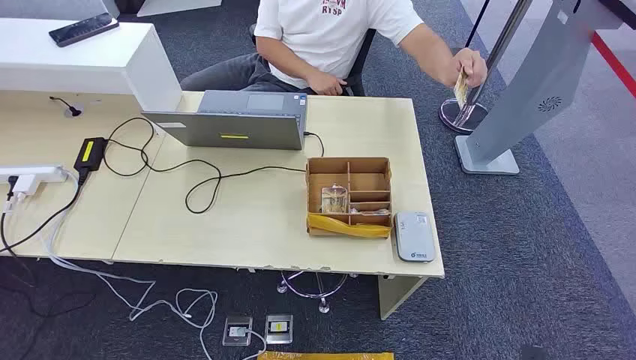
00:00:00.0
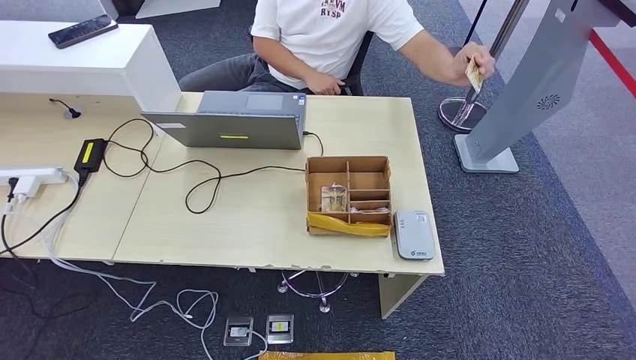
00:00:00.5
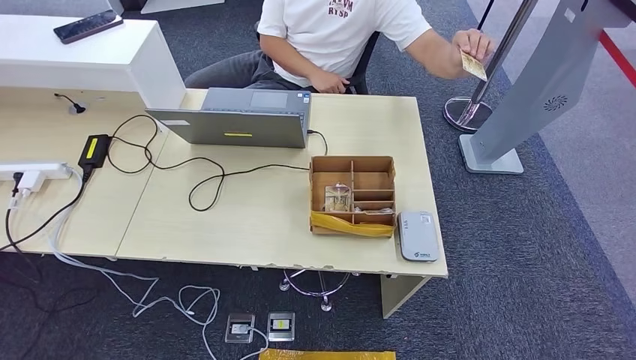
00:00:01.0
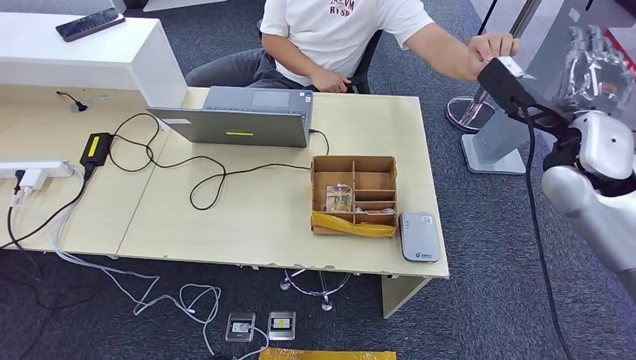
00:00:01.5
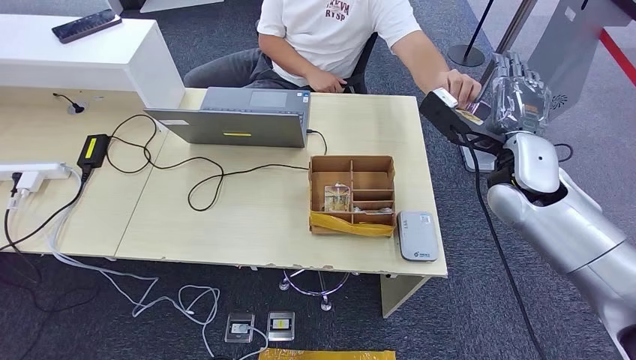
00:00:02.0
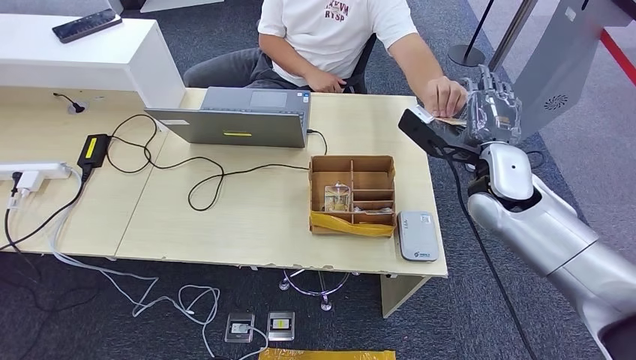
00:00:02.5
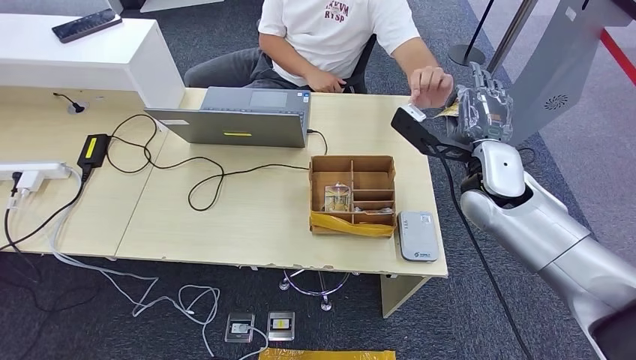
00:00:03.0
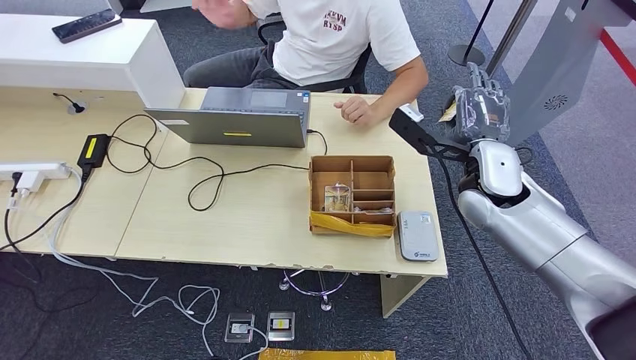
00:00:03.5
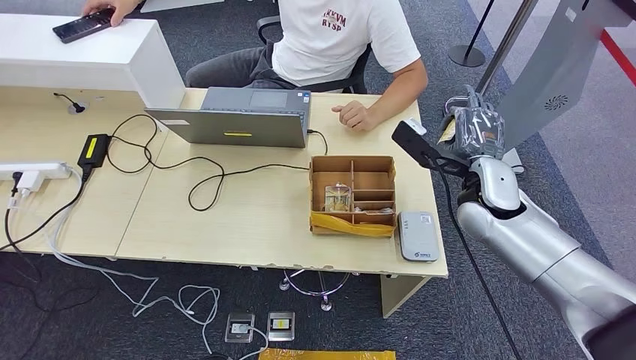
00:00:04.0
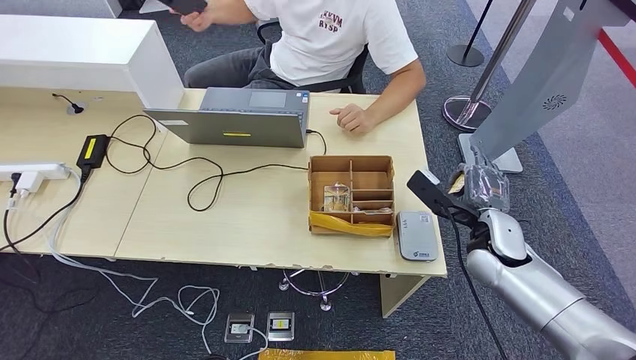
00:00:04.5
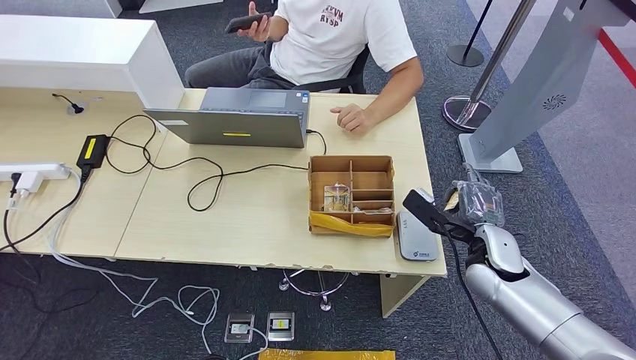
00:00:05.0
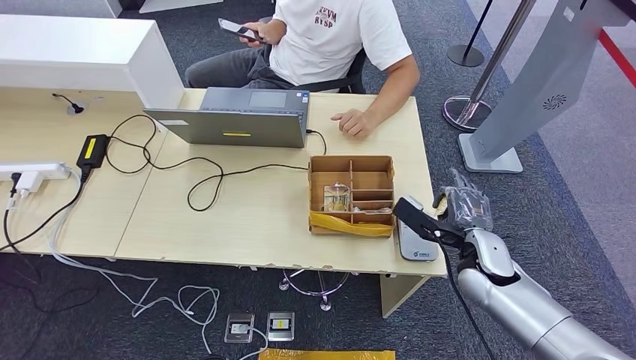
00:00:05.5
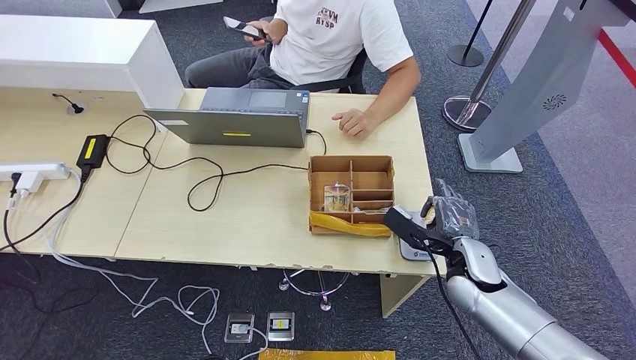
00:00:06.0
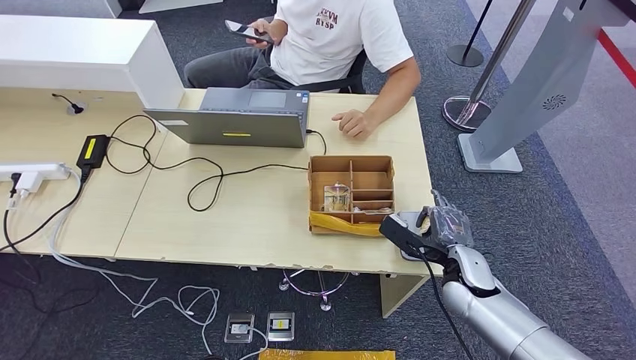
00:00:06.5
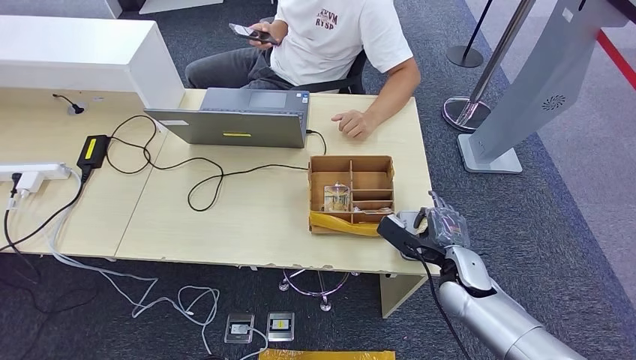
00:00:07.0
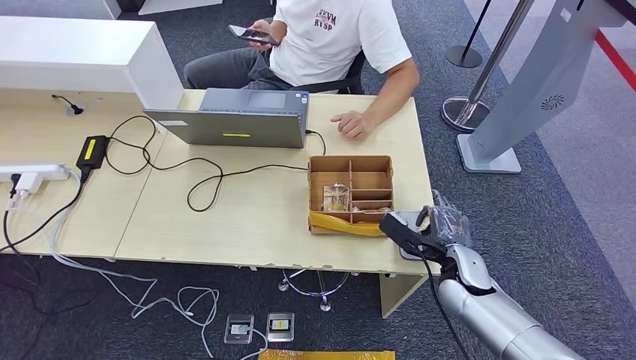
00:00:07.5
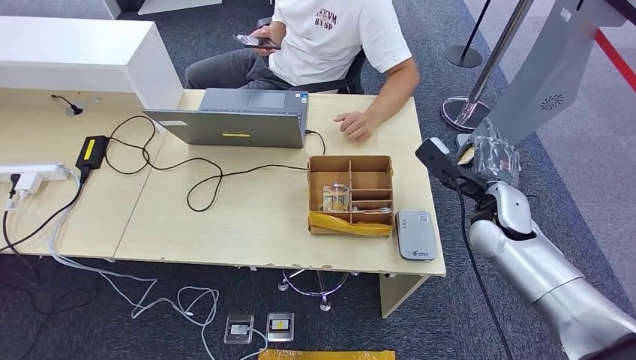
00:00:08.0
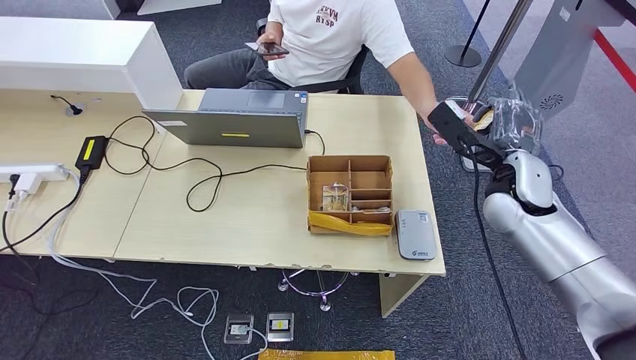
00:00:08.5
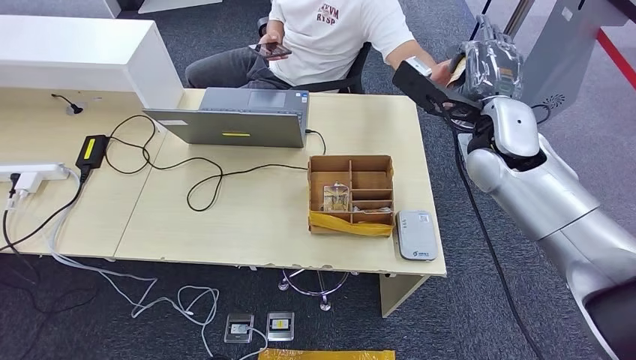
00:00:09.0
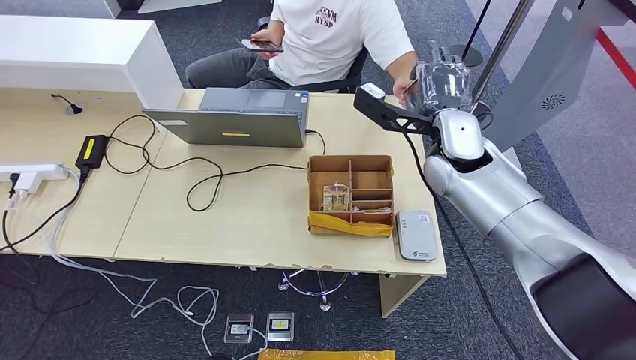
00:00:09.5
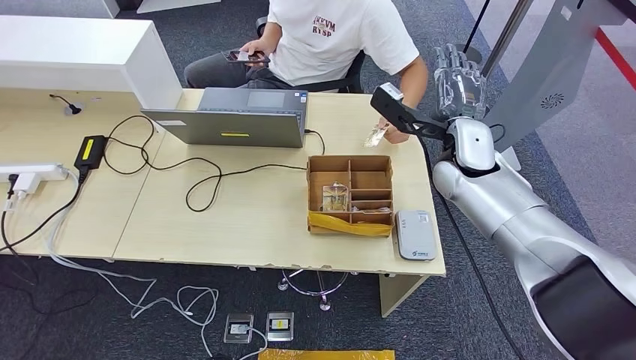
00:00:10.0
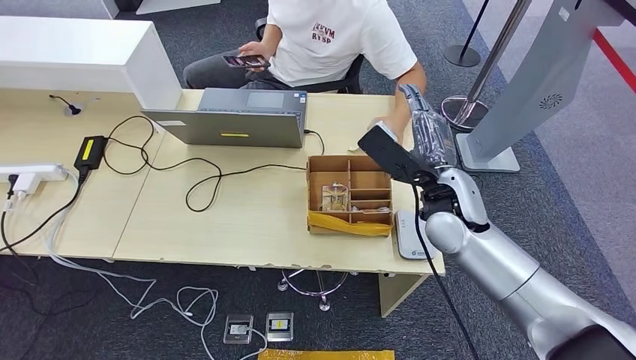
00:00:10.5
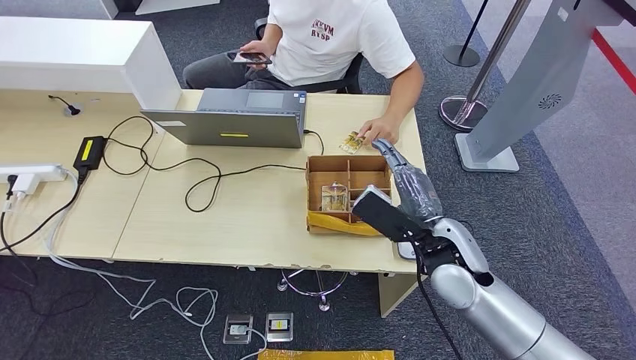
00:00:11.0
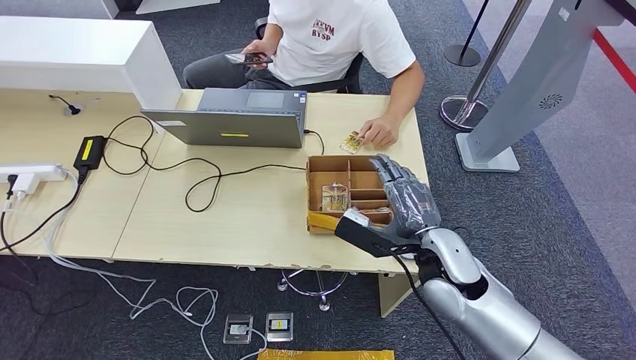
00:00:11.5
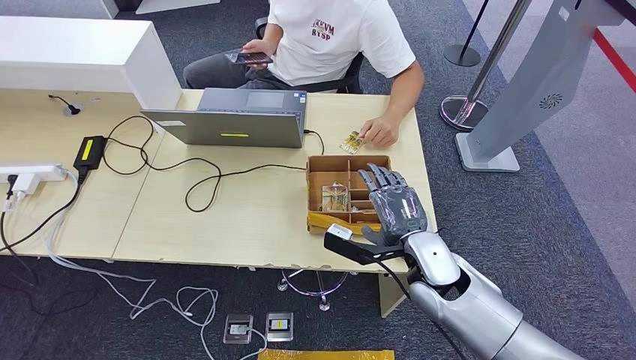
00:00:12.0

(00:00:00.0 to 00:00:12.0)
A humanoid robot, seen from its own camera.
Step, 00:00:00.0 - 00:00:03.0: Take the ID card from the person's hand.
Step, 00:00:05.0 - 00:00:07.0: Place the ID card on the card reader.
Step, 00:00:08.0 - 00:00:09.5: Hand the ID card to the person.
00:00:02.0 - 00:00:04.0: The right hand is displaced downward by approximately 5 cm.
00:00:04.0 - 00:00:06.0: The right hand heads downward and backward, covering some 15 cm.
00:00:06.0 - 00:00:08.0: The right hand goes some 10 cm upward and forward.
00:00:08.0 - 00:00:10.0: The right hand shifts roughly 15 cm to the left, upward and forward.
00:00:10.0 - 00:00:12.0: The right hand shifts about 20 cm backward and downward.

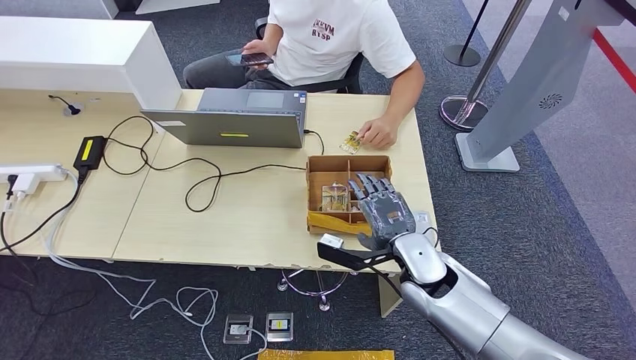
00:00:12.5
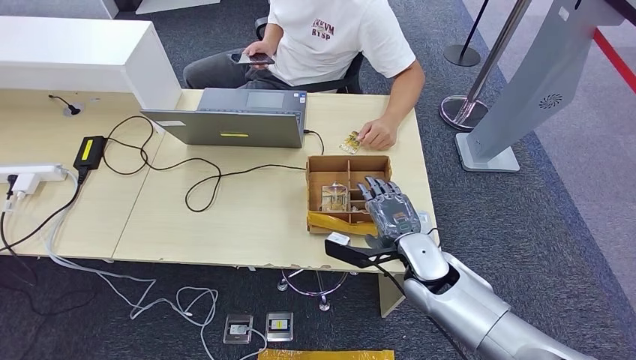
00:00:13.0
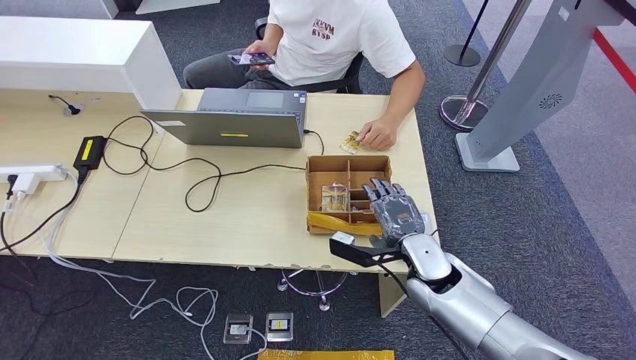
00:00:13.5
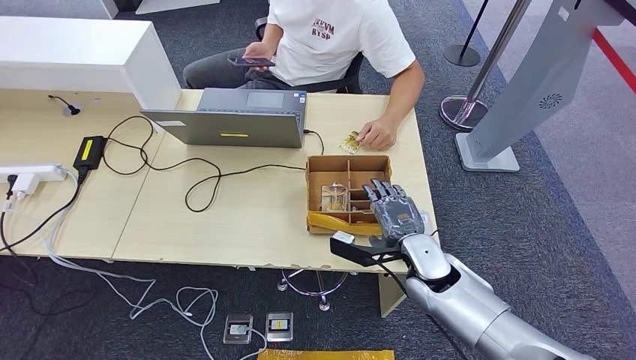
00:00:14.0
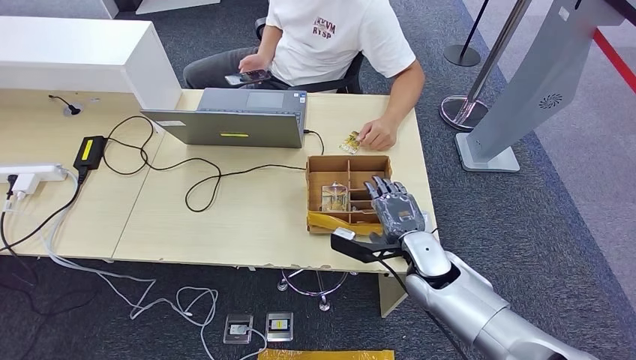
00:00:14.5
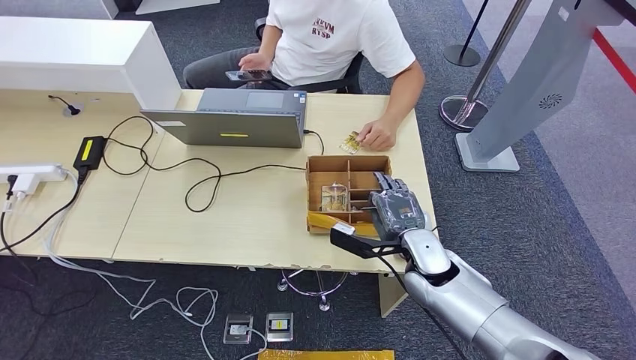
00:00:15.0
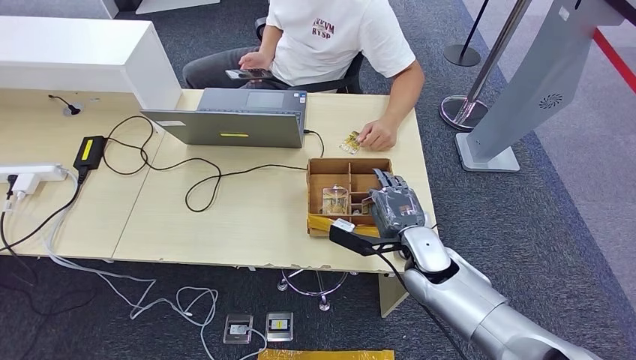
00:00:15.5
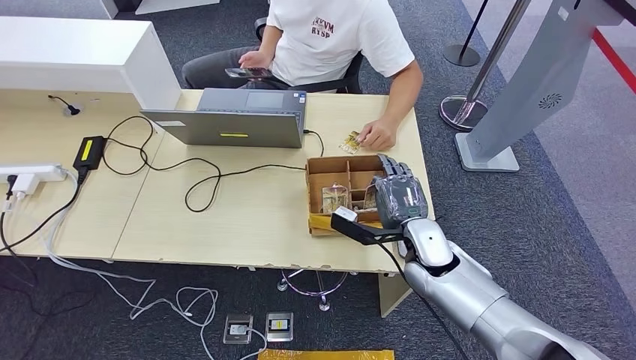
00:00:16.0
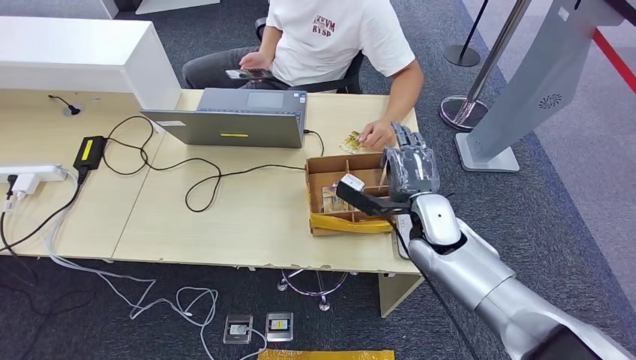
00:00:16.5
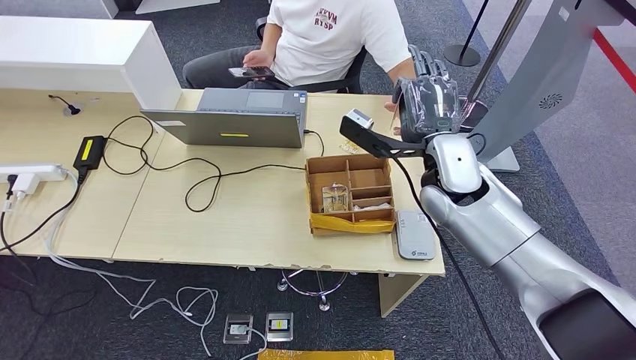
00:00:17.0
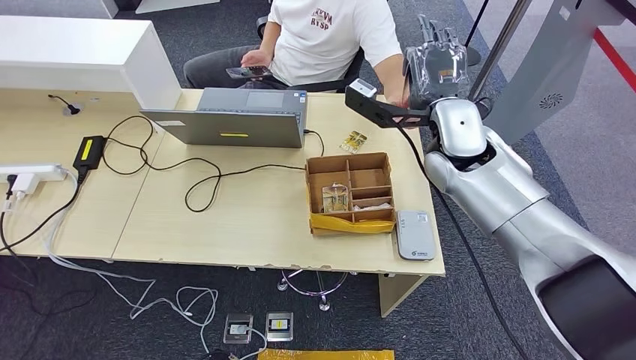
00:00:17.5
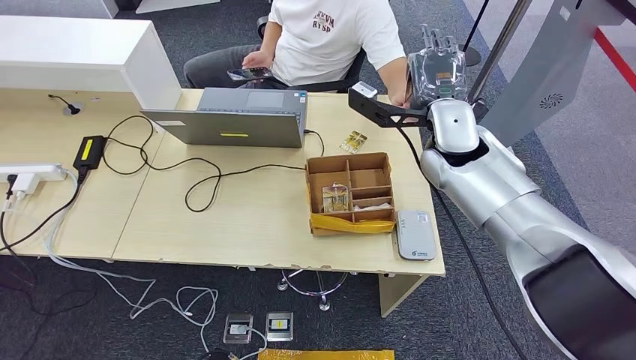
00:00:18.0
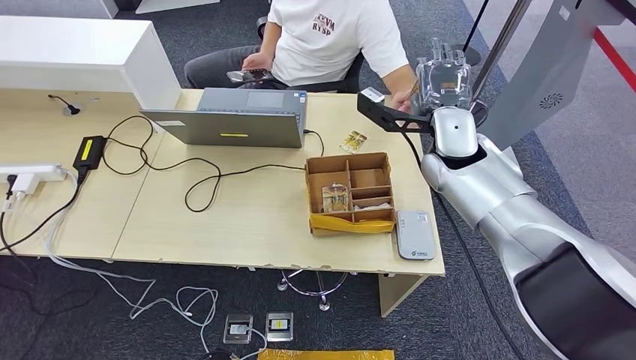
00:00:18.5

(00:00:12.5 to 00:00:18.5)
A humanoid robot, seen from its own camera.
Step, 00:00:14.5 - 00:00:16.5: Pick up the room key from the key card box.
Step, 00:00:17.5 - 00:00:18.5: Hand the room key to the person.
00:00:12.5 - 00:00:14.5: The hands stay close to where they were, moving slightly.
00:00:14.5 - 00:00:16.5: The right hand shifts about 5 cm upward.
00:00:16.5 - 00:00:18.5: The right hand travels upward and forward by approximately 15 cm.
